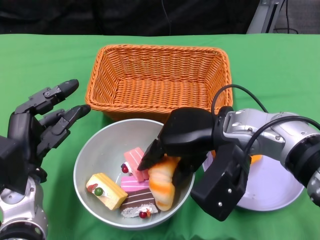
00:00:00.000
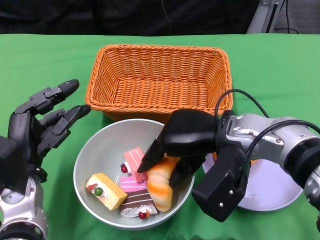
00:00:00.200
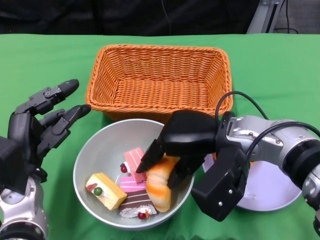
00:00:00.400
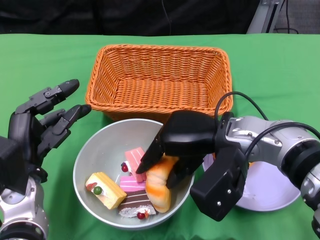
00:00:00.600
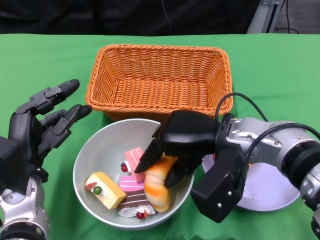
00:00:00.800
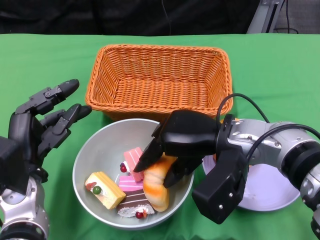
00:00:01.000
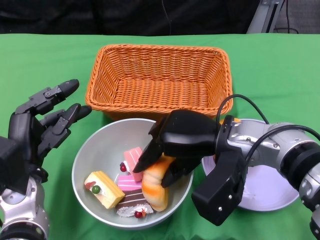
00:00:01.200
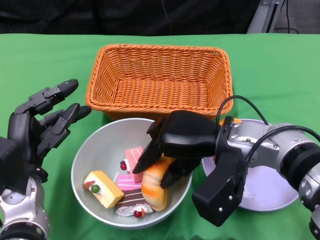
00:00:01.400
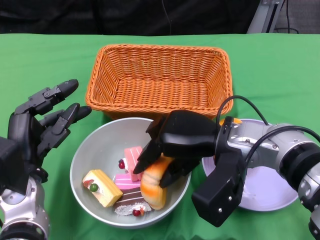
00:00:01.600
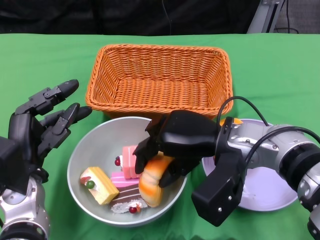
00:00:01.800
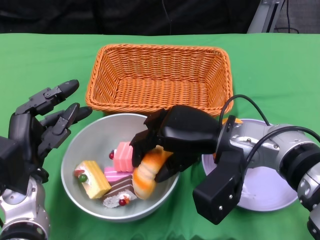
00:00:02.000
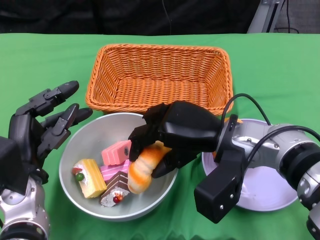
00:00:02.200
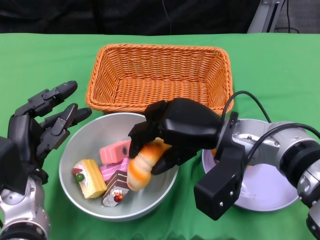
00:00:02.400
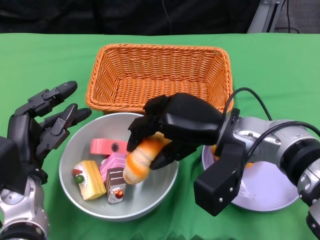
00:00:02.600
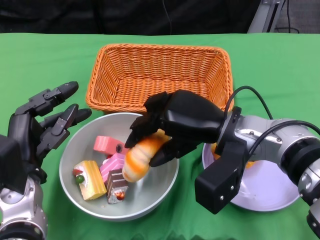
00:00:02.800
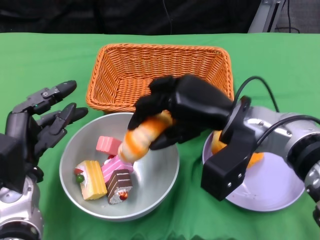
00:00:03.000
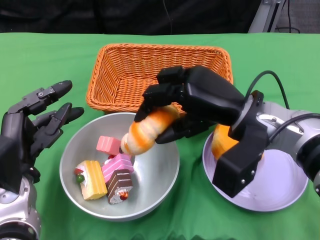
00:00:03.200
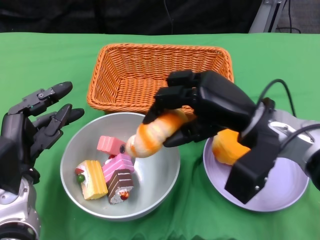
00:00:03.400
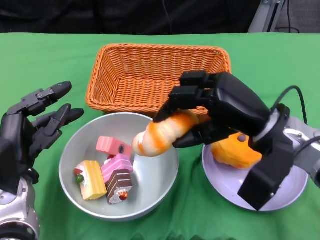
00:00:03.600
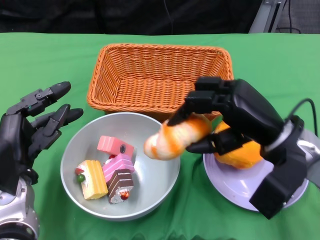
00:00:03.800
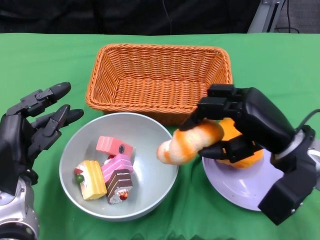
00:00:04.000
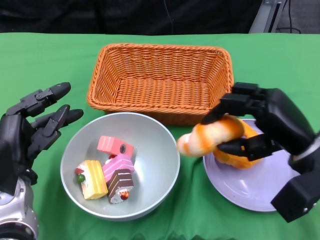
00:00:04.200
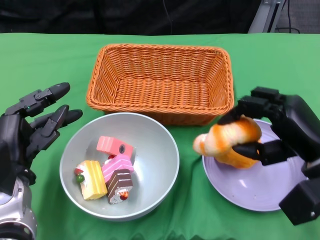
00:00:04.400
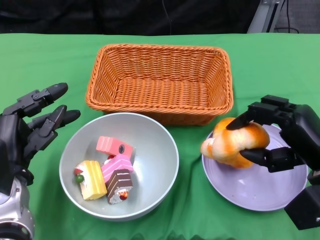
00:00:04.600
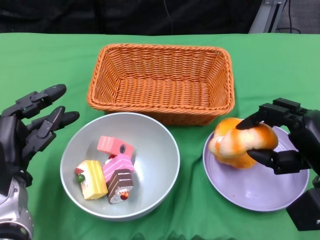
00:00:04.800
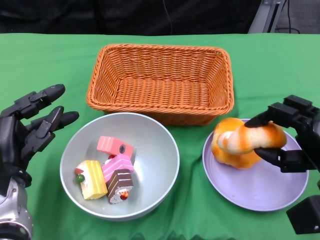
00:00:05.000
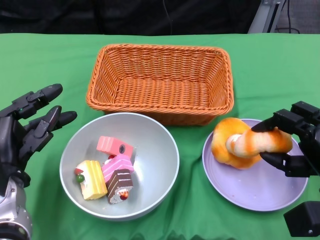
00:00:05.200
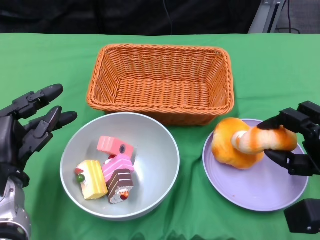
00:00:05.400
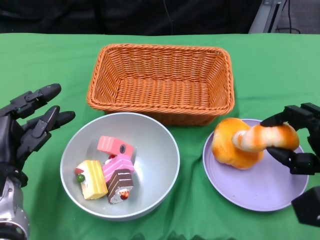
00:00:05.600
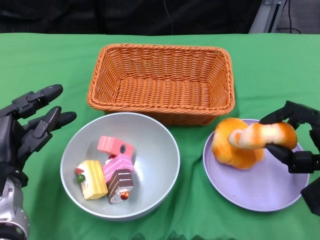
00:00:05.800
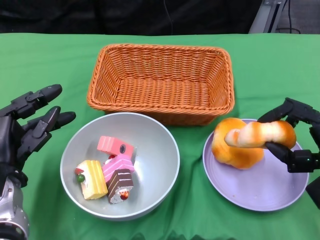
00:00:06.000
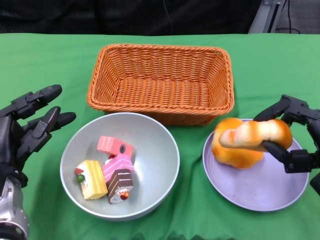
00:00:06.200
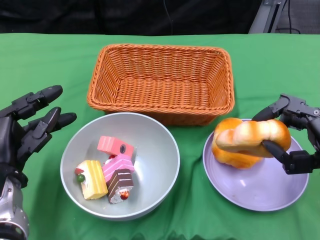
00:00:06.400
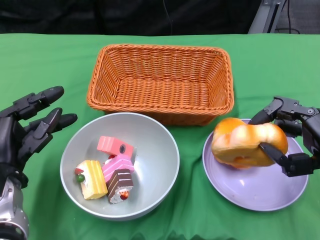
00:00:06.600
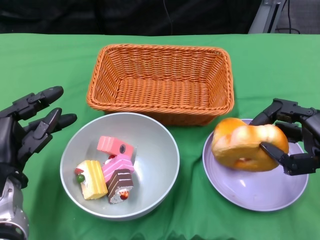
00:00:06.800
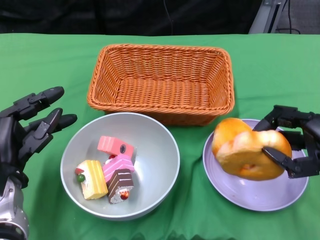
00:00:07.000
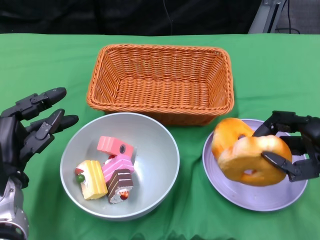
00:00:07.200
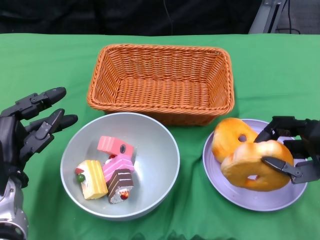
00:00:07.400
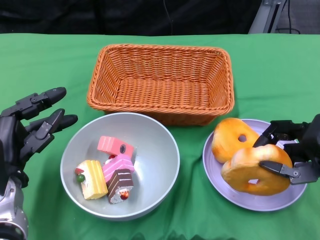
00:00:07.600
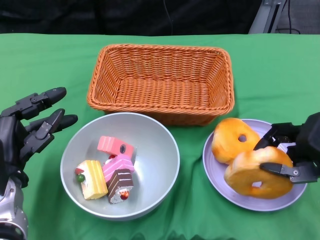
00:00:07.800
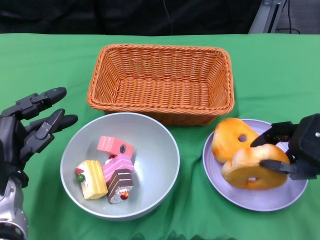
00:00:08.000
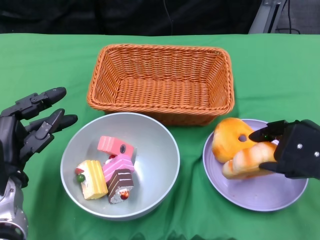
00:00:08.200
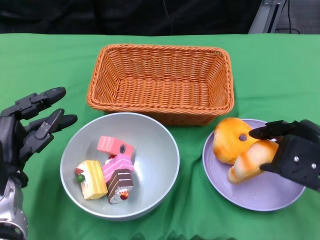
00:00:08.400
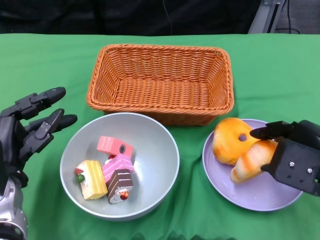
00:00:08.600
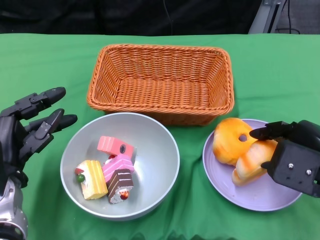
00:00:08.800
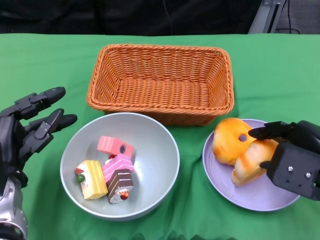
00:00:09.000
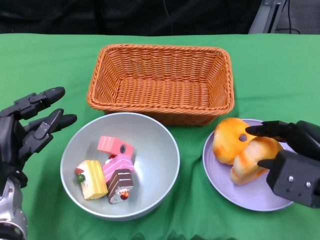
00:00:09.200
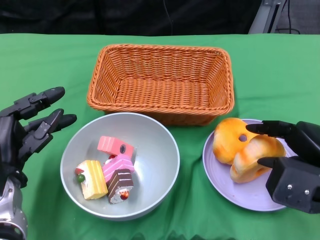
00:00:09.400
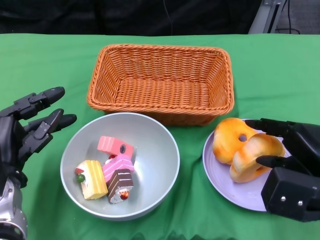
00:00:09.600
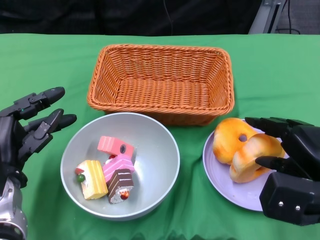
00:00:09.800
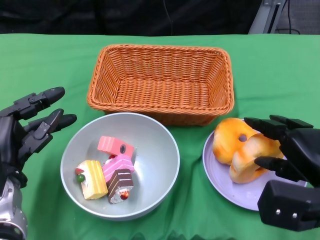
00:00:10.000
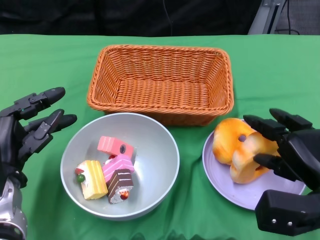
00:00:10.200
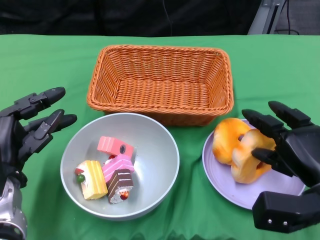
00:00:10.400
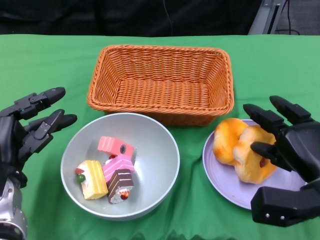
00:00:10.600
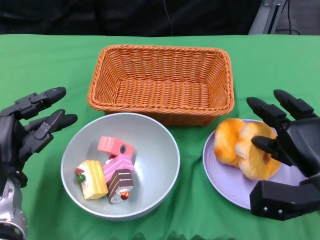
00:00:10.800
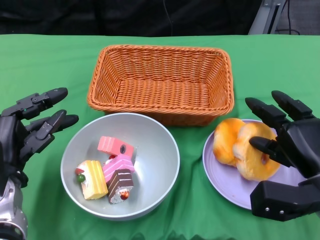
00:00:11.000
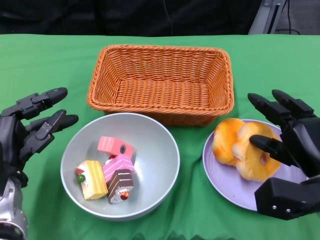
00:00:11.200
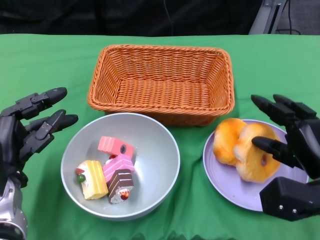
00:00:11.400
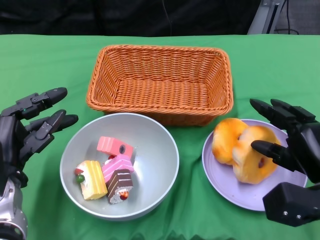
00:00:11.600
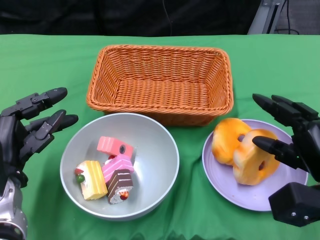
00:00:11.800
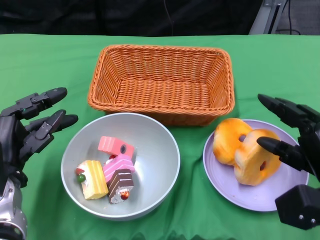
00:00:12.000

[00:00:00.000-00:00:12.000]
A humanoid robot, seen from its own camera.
Step, 00:00:00.000 to 00:00:11.800: Pick up the bread with the right gripper and place it on the plate.
00:00:00.000 to 00:00:01.600: The hands stay close to where they were, moving slightly.
00:00:03.000 to 00:00:04.400: The right hand moves to the right, some 10 cm.
00:00:06.000 to 00:00:07.600: The right hand goes roughly 5 cm upward.
00:00:09.000 to 00:00:10.400: The right hand moves downward, about 5 cm.

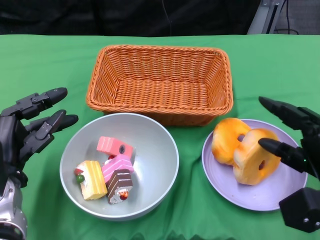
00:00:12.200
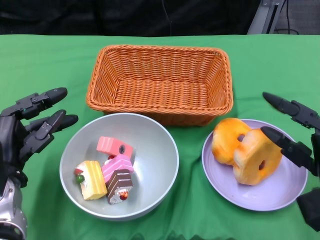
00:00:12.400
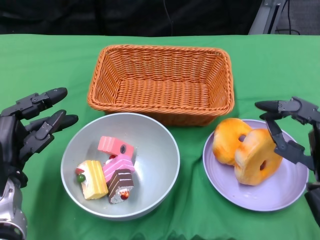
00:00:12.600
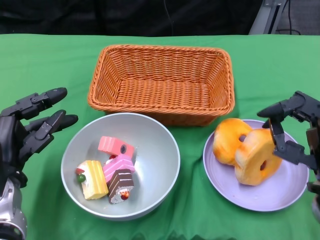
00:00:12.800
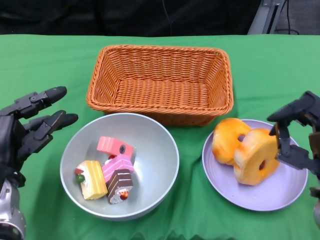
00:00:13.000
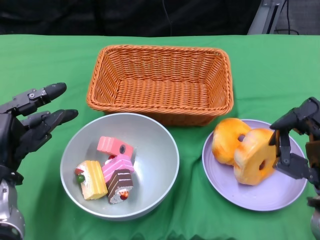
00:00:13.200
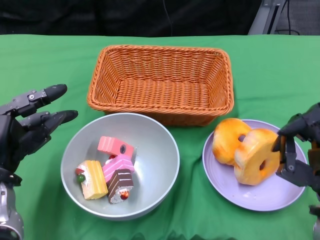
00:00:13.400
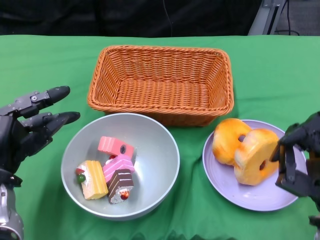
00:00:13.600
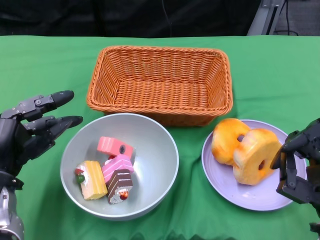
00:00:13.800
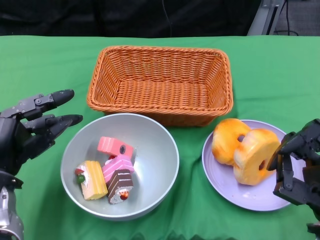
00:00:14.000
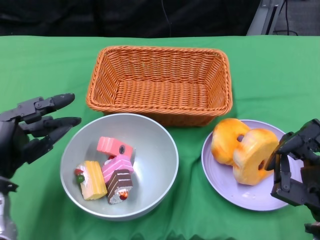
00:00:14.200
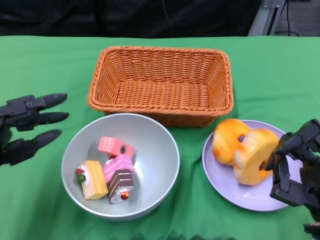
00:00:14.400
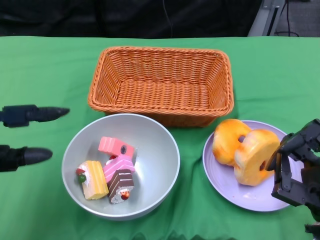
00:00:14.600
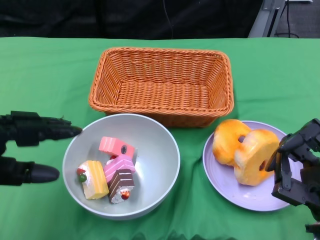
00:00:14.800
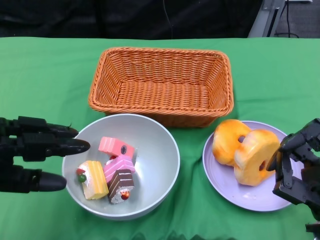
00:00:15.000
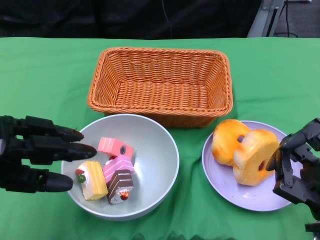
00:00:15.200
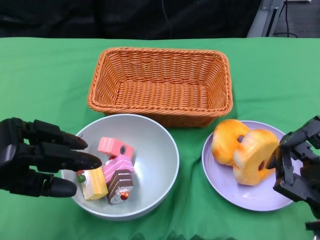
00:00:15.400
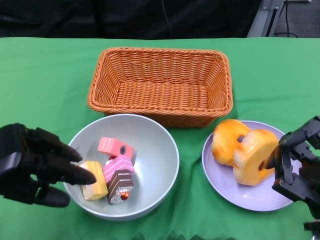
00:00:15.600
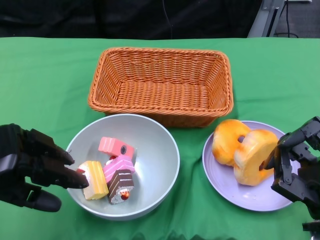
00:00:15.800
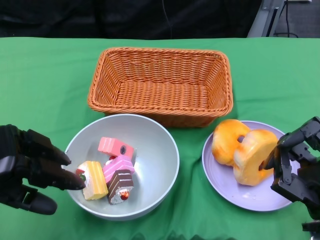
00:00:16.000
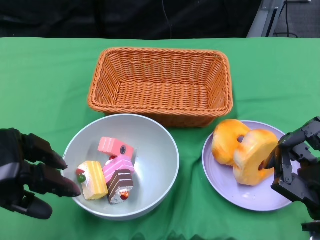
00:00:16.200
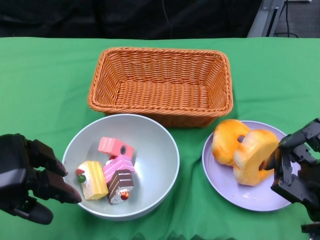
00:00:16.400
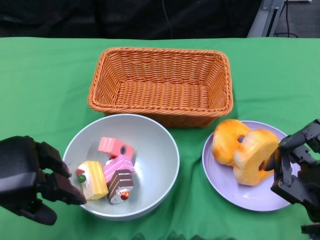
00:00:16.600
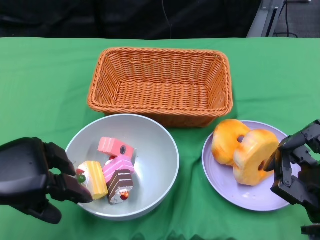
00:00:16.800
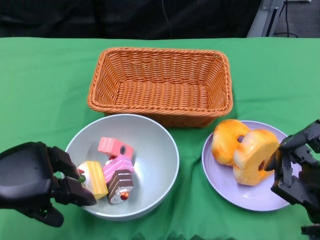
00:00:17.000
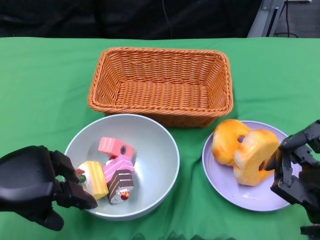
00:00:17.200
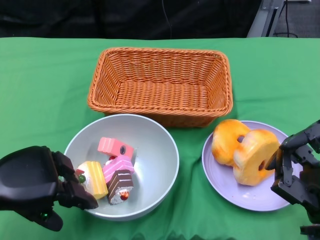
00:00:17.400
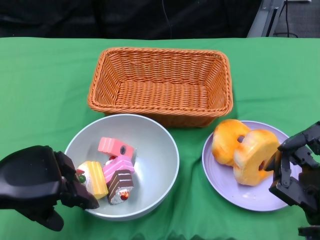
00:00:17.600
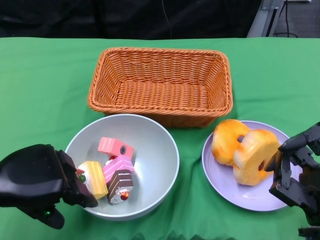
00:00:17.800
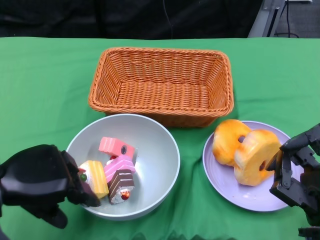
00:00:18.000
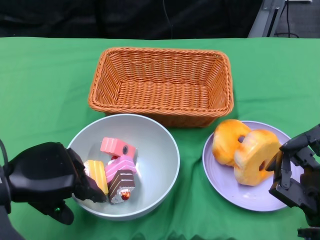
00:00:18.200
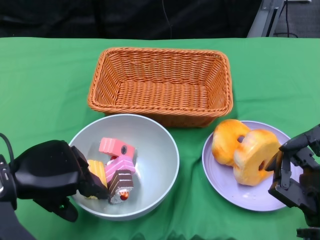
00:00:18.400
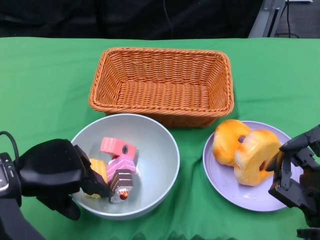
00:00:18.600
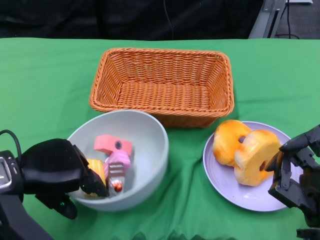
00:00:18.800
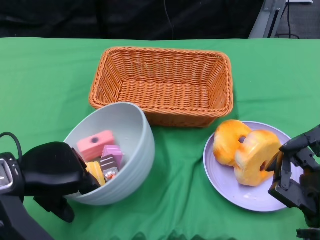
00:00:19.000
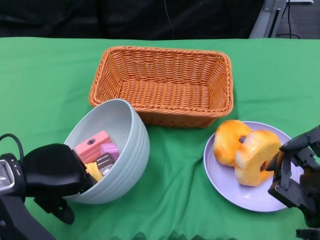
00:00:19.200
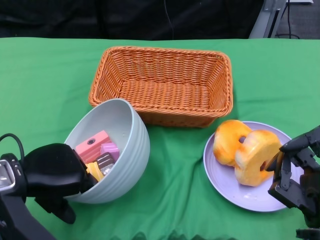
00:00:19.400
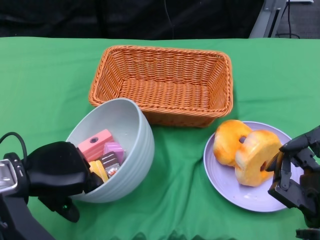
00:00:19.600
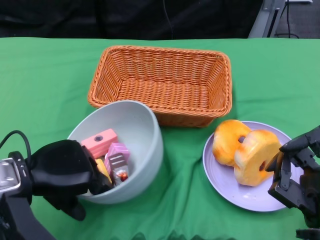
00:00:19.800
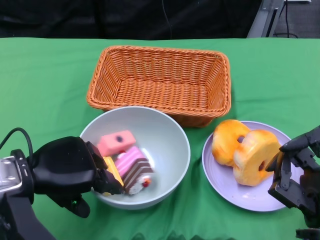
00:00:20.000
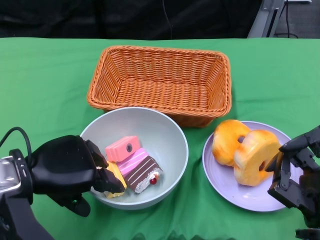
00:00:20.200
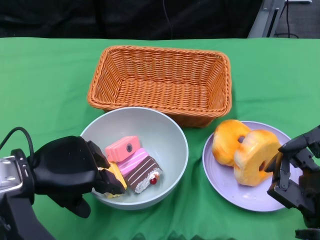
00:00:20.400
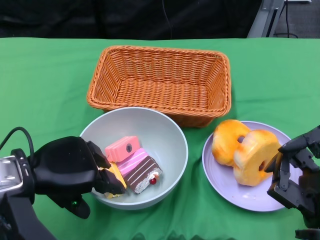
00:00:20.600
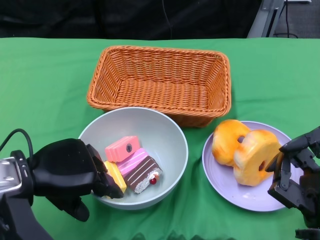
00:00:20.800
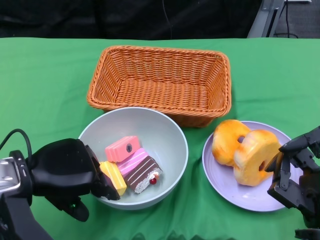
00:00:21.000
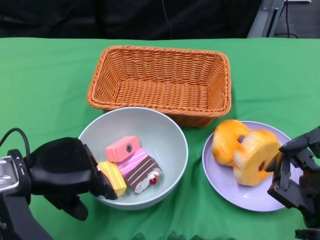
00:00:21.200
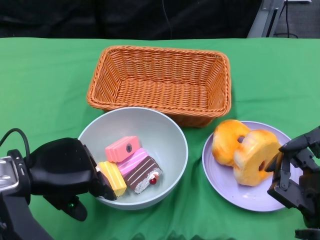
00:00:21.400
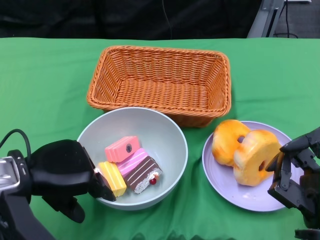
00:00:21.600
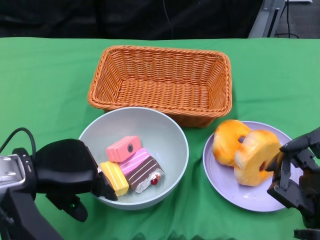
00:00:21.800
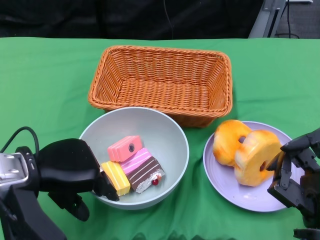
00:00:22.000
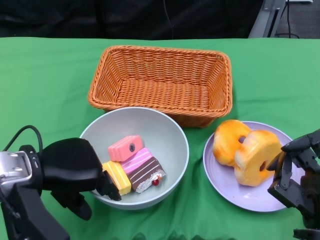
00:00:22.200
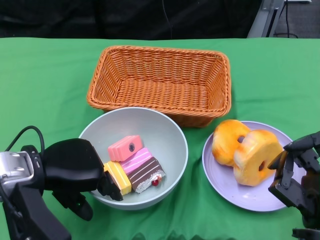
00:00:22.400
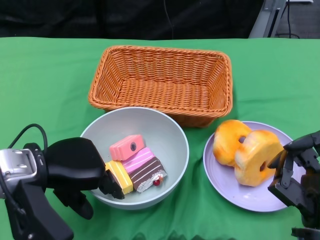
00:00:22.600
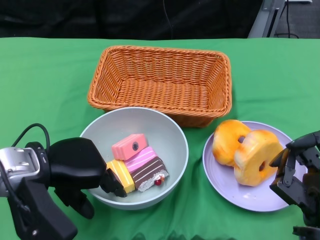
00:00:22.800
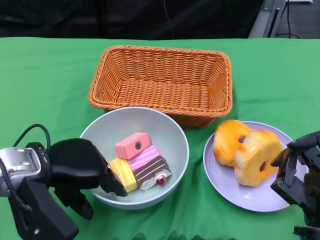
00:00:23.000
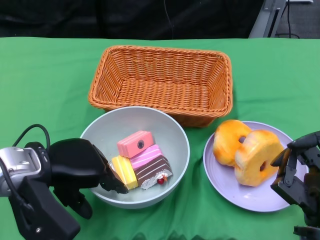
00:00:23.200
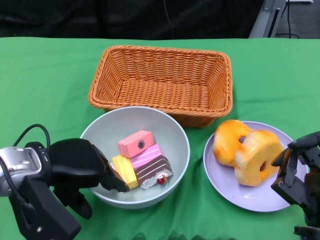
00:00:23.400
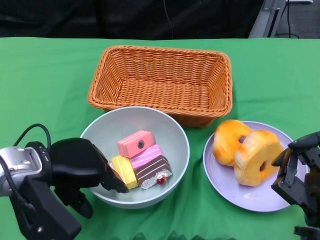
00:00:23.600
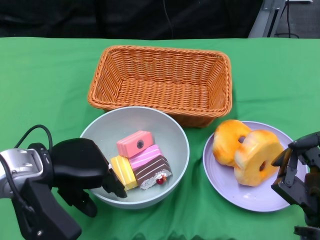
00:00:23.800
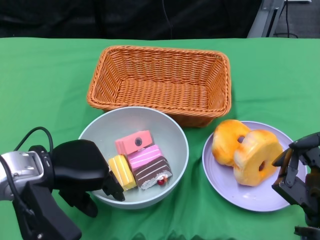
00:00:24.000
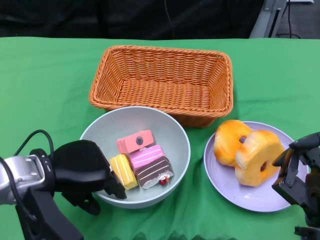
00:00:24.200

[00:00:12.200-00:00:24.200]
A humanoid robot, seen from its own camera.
00:00:12.200 to 00:00:13.800: The right hand travels backward by roughly 5 cm.
00:00:13.800 to 00:00:15.200: The left hand shifts approximately 5 cm upward.
00:00:16.600 to 00:00:18.200: The hands stay close to where they were, moving slightly.
00:00:18.200 to 00:00:19.800: The hands stay close to where they were, moving slightly.
00:00:19.800 to 00:00:21.200: The two hands keep their place.
00:00:21.200 to 00:00:24.200: The hands move only a little.
